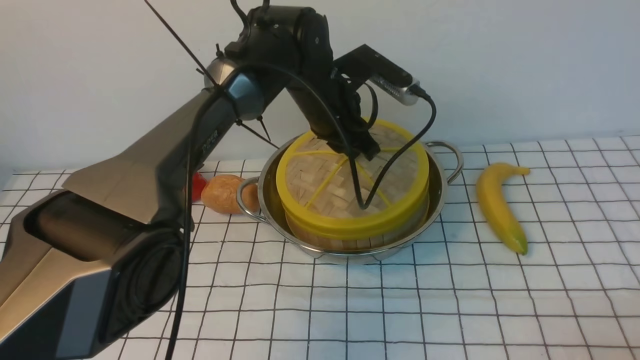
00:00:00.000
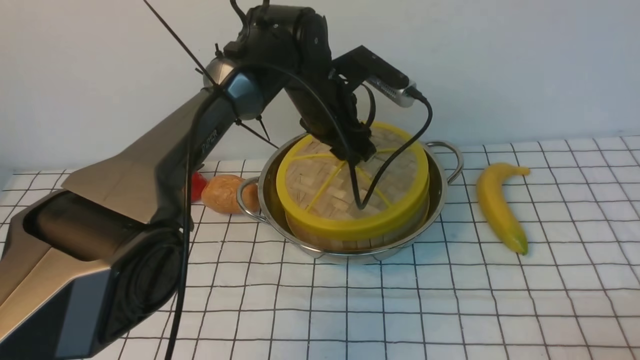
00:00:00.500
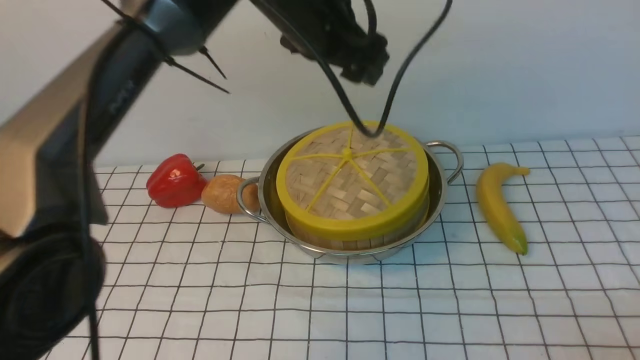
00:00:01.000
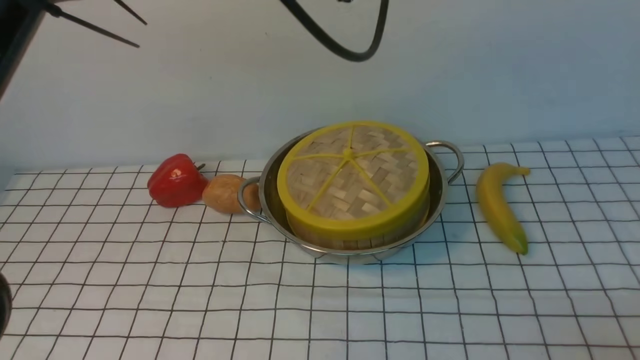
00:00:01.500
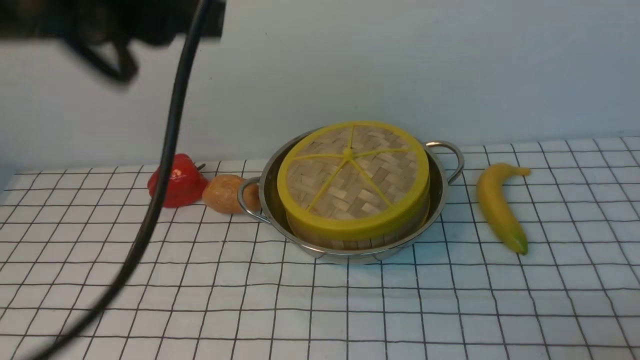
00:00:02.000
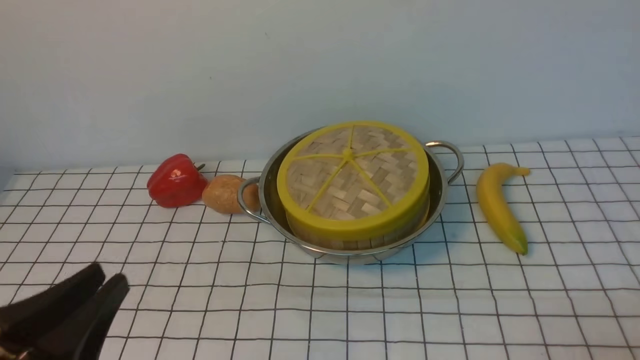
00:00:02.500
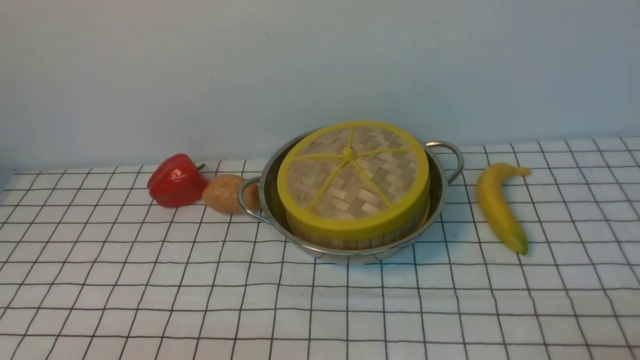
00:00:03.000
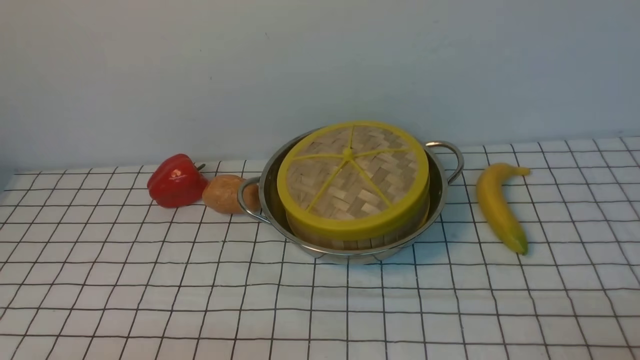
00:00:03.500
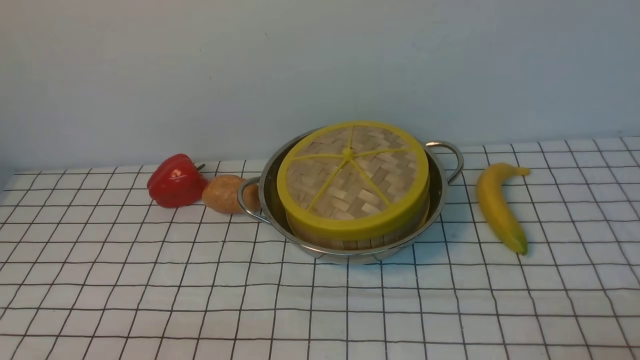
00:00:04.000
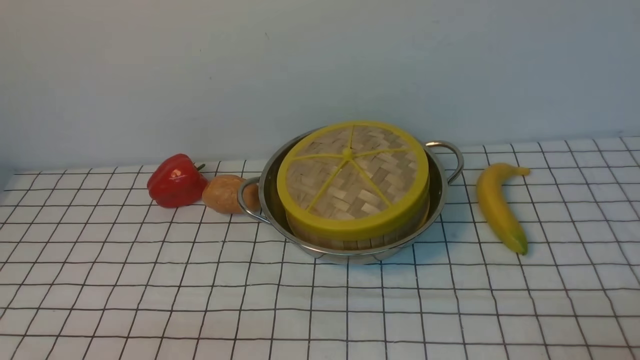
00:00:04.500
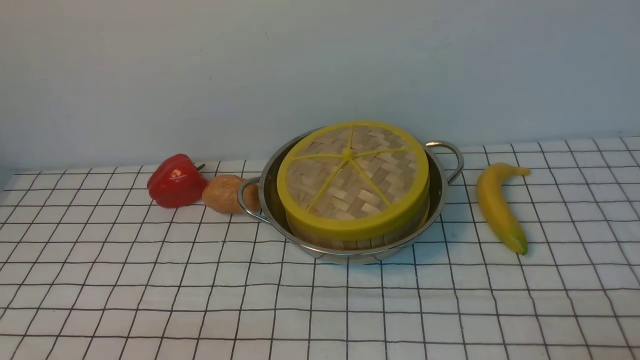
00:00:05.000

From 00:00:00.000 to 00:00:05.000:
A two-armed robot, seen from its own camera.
Task of the whole recording: place the steamer in the pot on the white tablecloth, and put the lid on the steamer.
From 00:00:00.000 to 00:00:02.500: The left gripper travels backward and to the left by about 40 cm, and opens and closes again.
From 00:00:02.500 to 00:00:05.000: The left gripper is displaced downward by some 10 cm.
